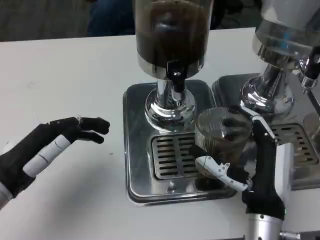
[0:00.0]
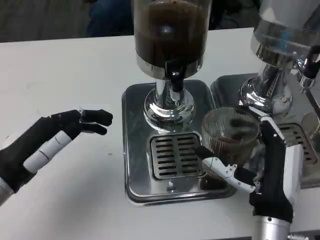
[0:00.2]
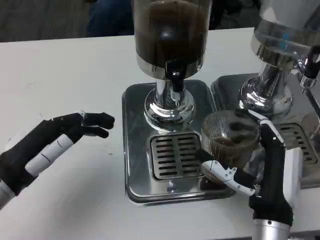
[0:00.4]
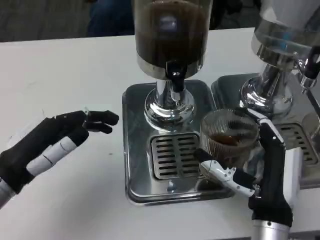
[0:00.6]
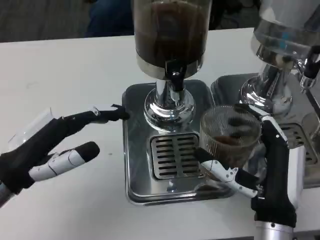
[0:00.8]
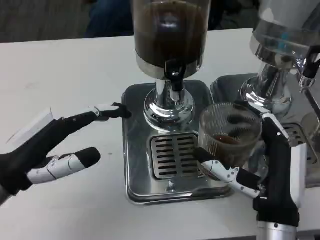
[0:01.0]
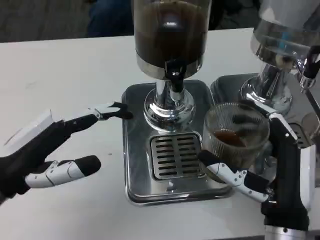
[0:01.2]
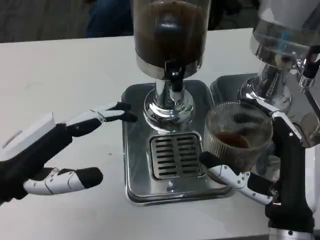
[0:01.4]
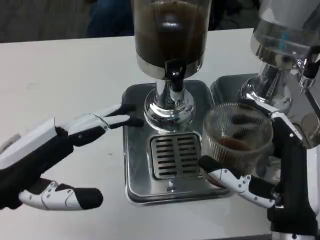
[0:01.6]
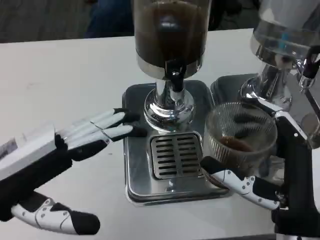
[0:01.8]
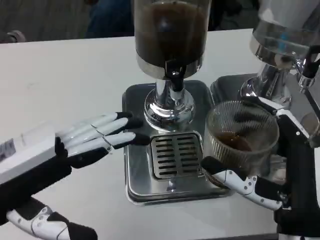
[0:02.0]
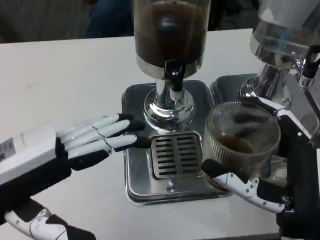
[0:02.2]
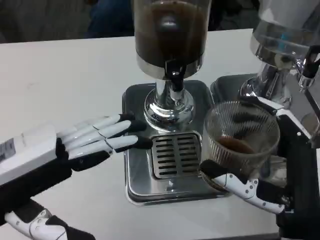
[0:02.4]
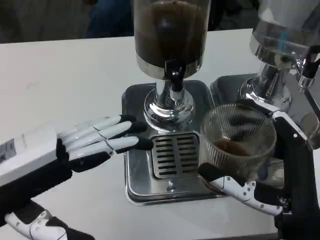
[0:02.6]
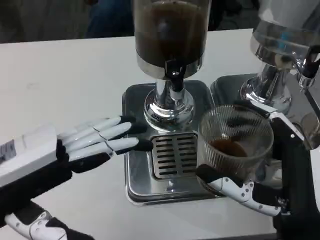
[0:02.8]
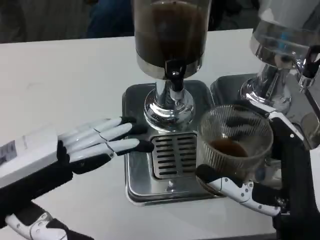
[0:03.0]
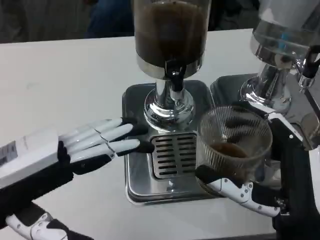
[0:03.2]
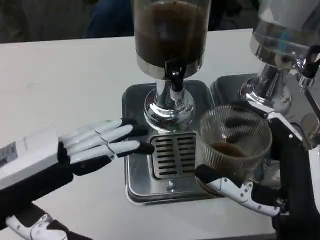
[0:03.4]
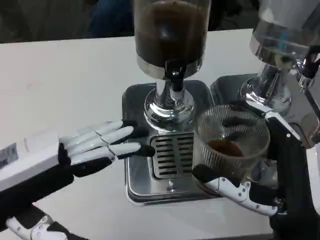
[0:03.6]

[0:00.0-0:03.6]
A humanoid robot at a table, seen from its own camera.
Task of the whole recording: Grasp the cup under the faucet to collect the drink, then remove the cup.
0:00.0 to 0:01.8: The hands both shift upward by about 5 cm.
0:01.8 to 0:03.6: There are only small adjustments of the hands.

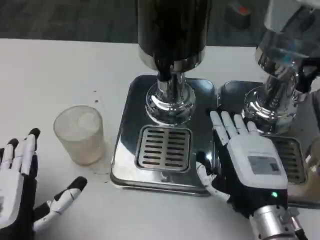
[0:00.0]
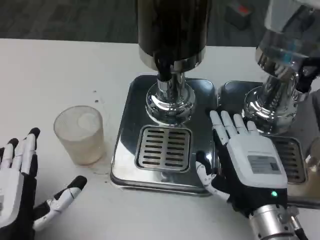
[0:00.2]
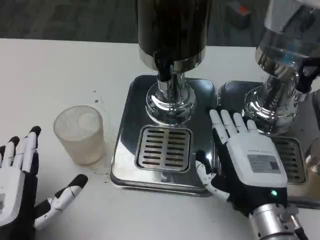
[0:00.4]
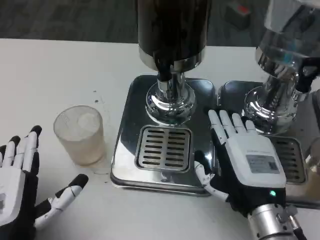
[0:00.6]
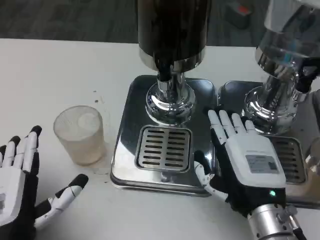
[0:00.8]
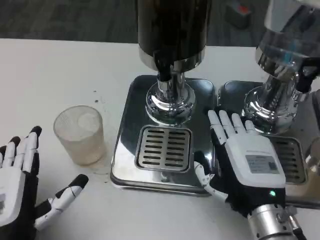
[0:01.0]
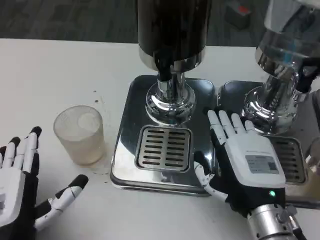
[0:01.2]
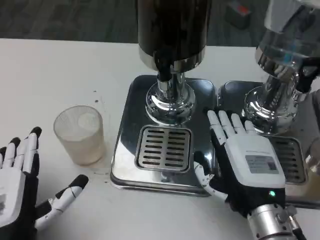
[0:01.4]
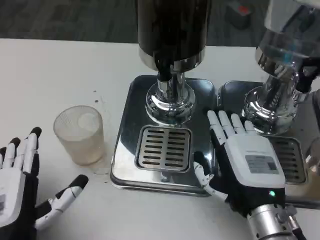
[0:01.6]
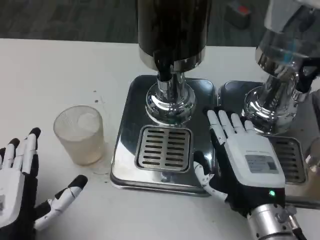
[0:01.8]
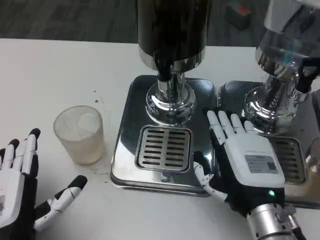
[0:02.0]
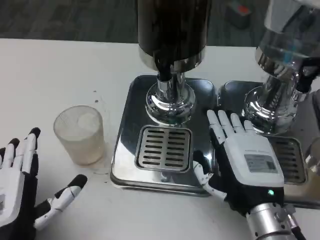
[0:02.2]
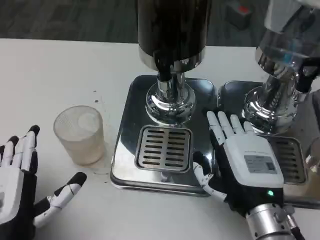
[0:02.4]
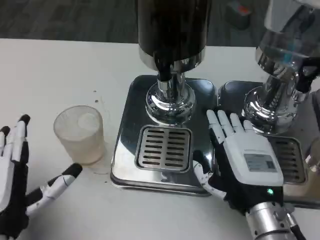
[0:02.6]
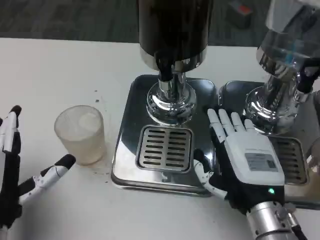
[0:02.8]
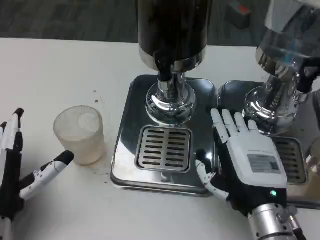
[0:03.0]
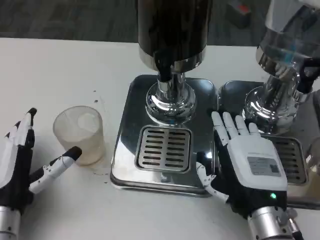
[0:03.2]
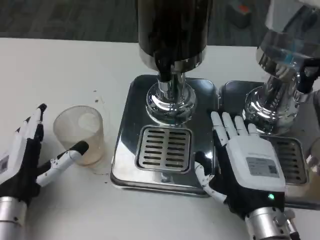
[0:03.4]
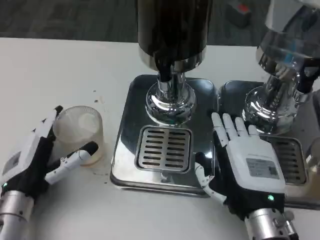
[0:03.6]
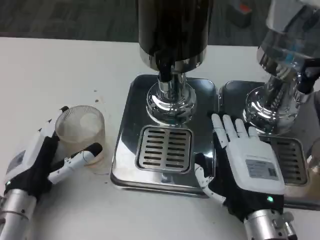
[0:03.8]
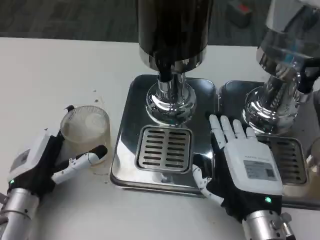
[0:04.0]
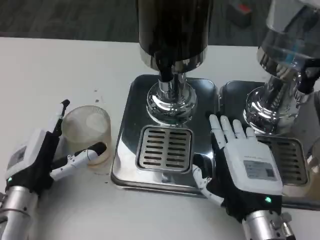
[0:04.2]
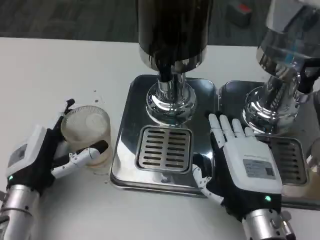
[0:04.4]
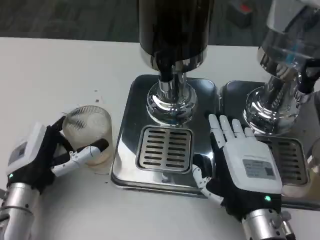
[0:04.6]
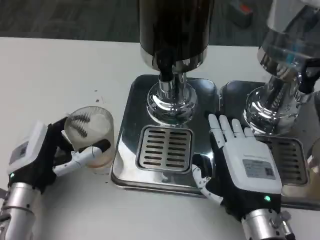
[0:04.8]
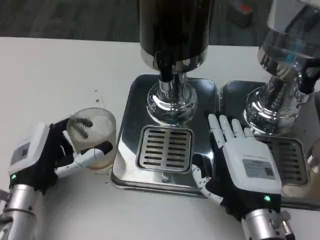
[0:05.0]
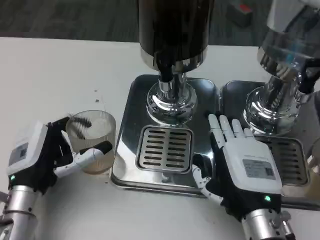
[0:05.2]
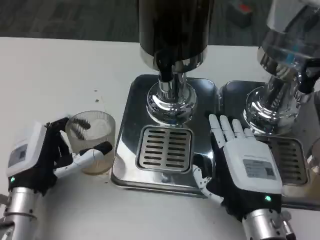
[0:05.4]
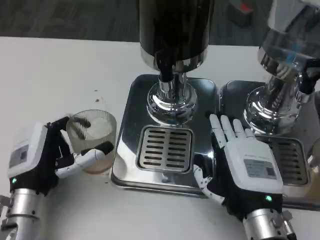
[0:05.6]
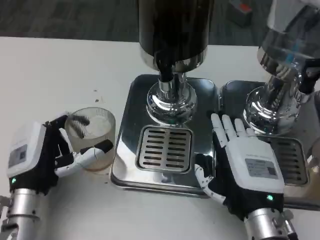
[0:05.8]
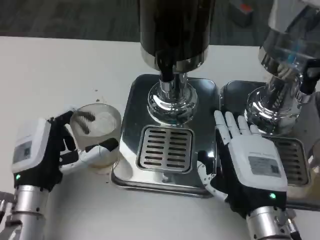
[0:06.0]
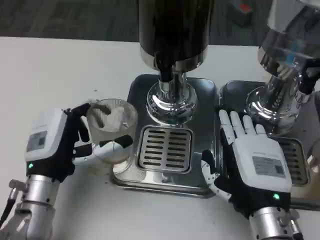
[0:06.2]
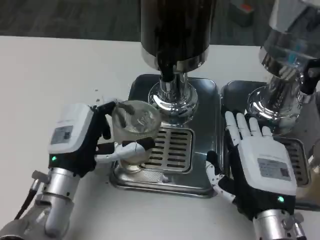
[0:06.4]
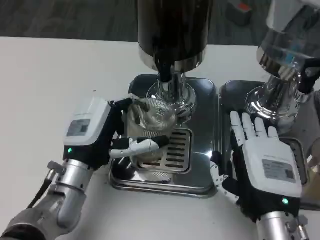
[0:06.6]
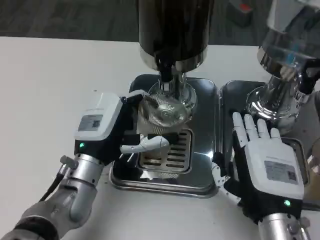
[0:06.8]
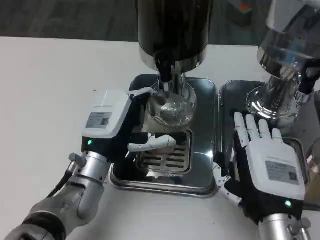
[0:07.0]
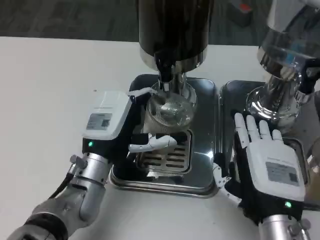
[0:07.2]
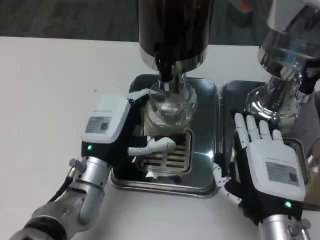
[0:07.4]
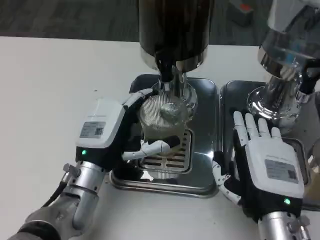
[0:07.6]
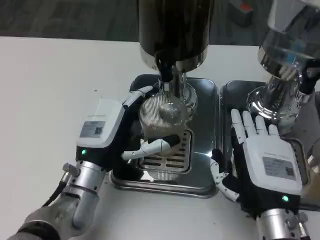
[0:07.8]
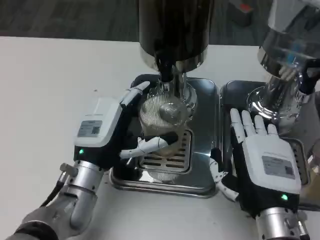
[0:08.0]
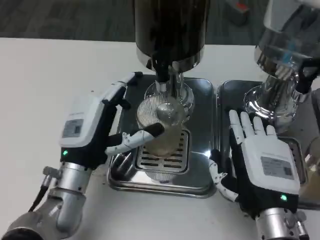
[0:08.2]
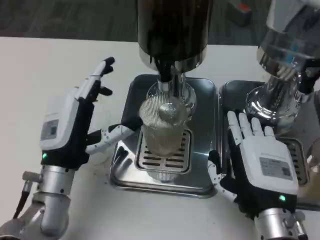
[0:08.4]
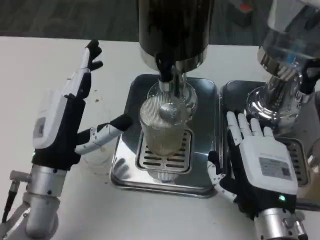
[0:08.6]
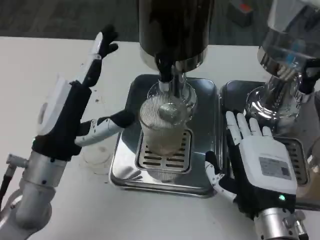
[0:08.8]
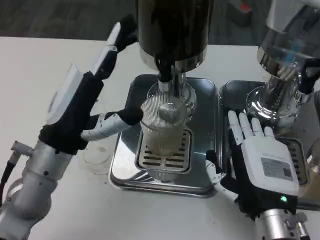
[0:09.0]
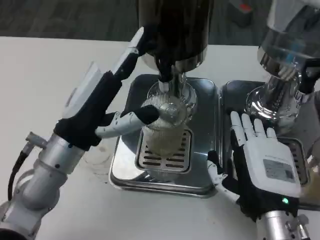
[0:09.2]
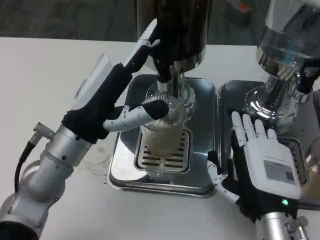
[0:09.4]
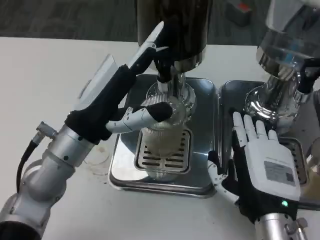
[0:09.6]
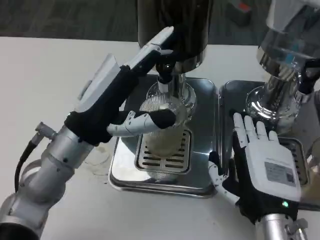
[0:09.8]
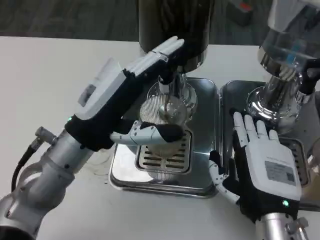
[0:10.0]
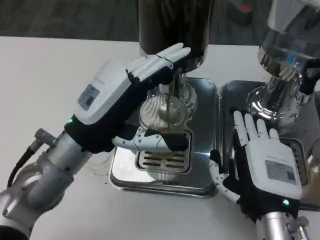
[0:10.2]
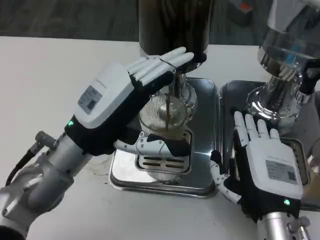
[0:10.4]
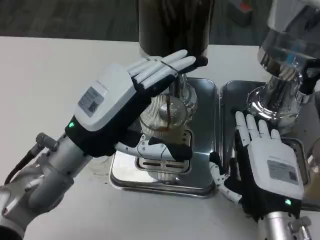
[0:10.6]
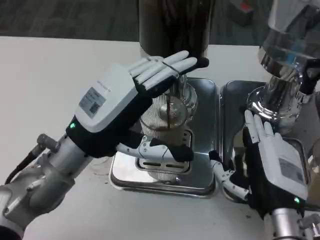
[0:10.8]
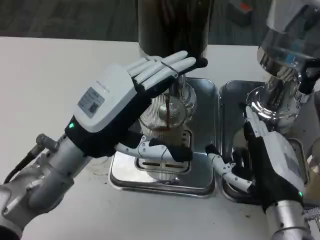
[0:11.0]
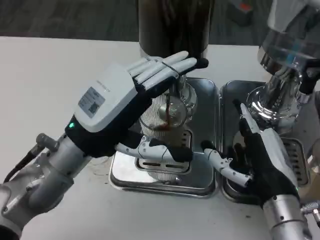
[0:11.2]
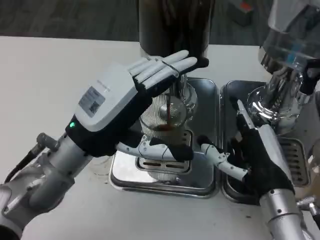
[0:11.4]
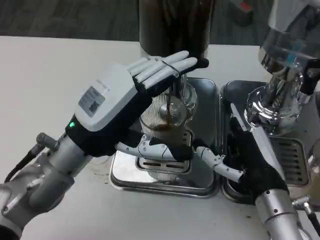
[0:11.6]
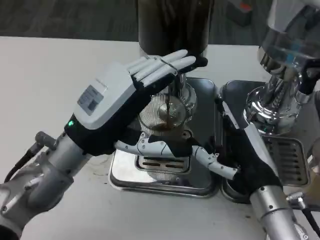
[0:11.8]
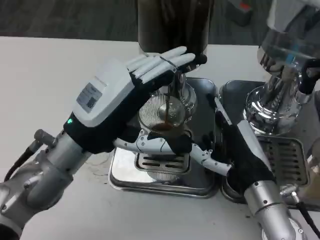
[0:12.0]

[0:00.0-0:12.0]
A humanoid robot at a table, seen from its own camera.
Task of the whole recording: Grasp the cup under the faucet to collect the drink, then remove the cup.
0:00.0 to 0:01.6: The two hands keep their place.
0:01.6 to 0:03.0: The left hand moves about 5 cm.
0:06.0 to 0:07.6: The left hand heads to the right, covering approximately 5 cm.
0:07.6 to 0:09.0: The left hand heads upward, covering some 5 cm.
0:10.4 to 0:12.0: The right hand is displaced forward by roughly 5 cm.

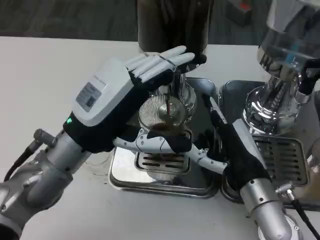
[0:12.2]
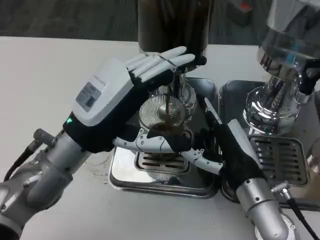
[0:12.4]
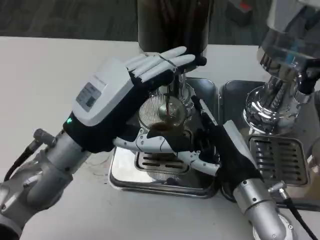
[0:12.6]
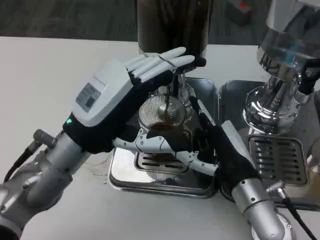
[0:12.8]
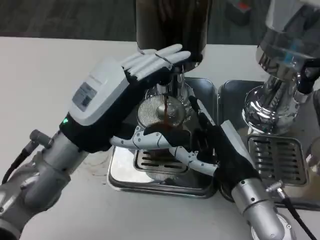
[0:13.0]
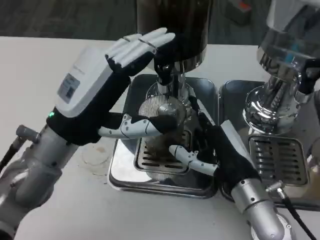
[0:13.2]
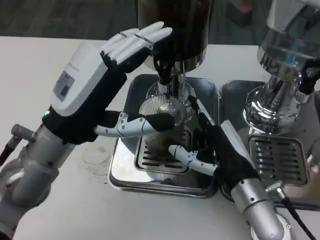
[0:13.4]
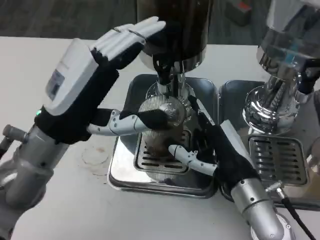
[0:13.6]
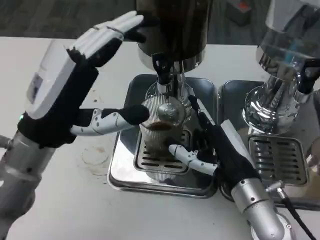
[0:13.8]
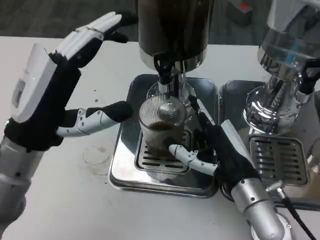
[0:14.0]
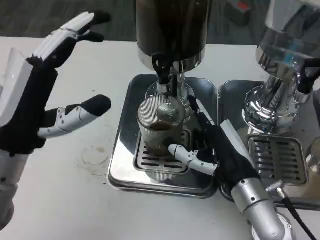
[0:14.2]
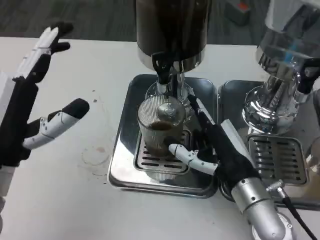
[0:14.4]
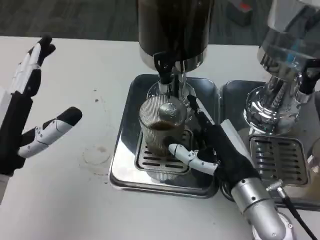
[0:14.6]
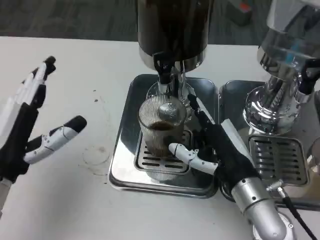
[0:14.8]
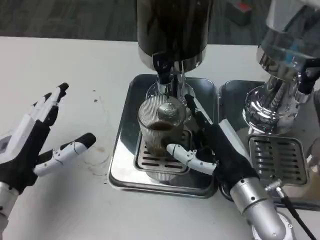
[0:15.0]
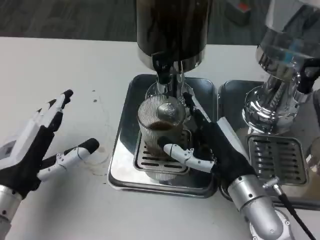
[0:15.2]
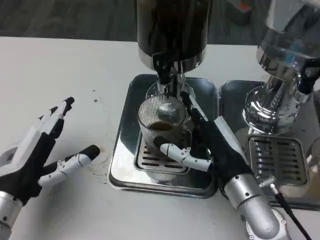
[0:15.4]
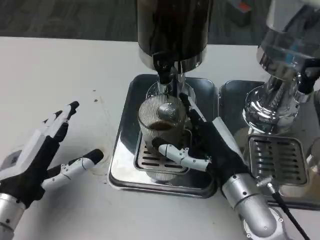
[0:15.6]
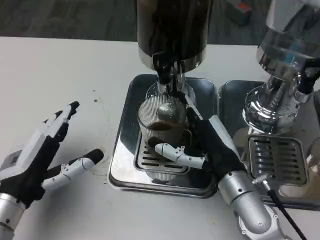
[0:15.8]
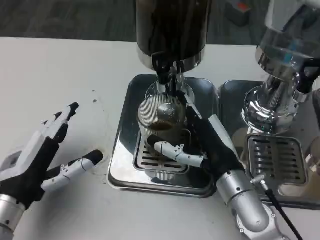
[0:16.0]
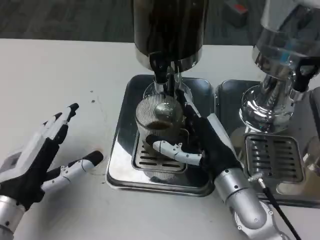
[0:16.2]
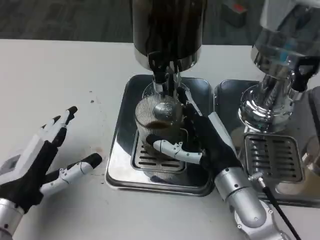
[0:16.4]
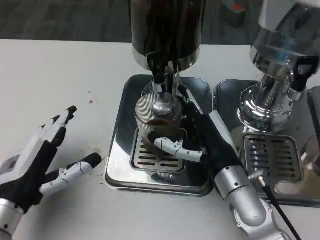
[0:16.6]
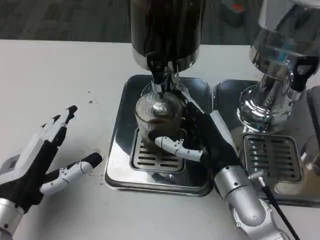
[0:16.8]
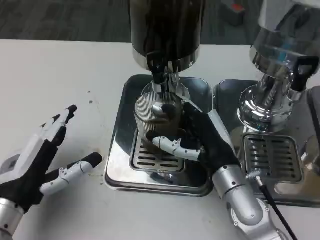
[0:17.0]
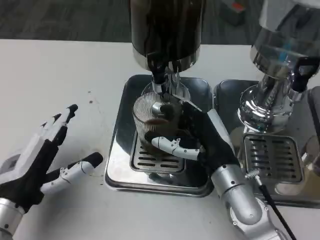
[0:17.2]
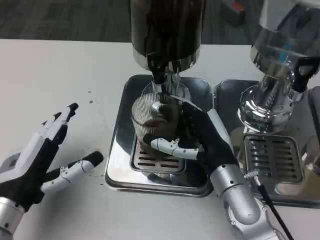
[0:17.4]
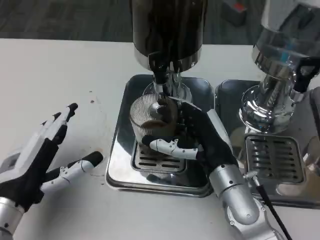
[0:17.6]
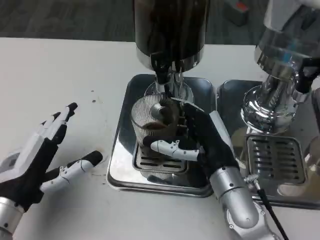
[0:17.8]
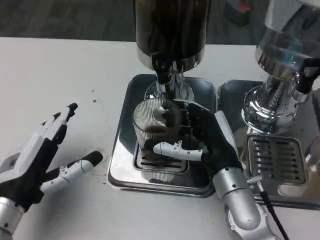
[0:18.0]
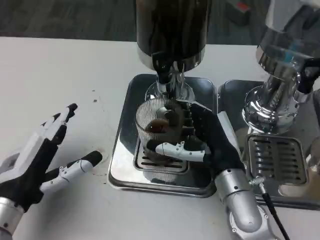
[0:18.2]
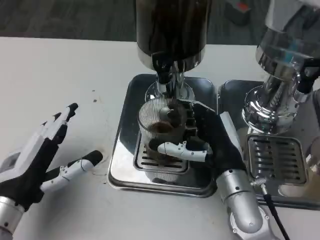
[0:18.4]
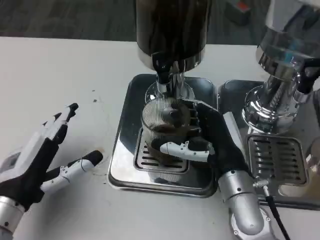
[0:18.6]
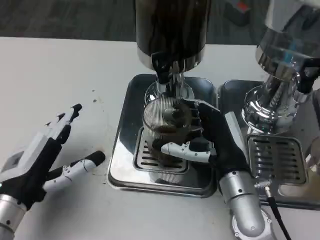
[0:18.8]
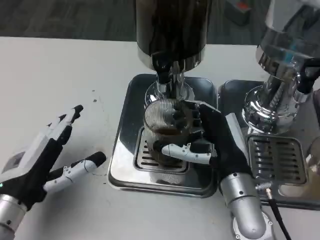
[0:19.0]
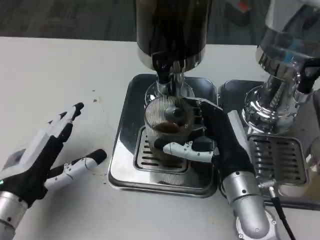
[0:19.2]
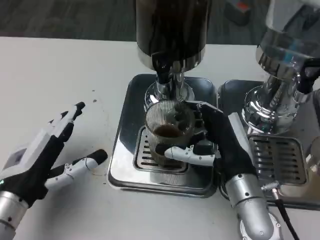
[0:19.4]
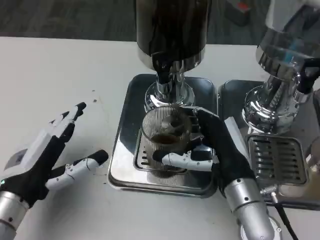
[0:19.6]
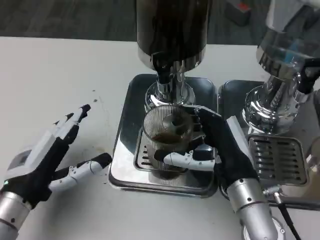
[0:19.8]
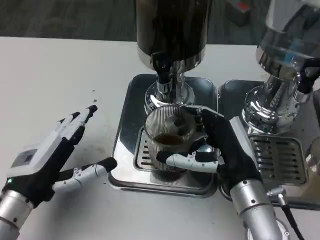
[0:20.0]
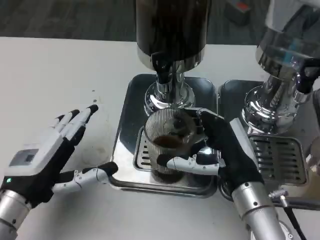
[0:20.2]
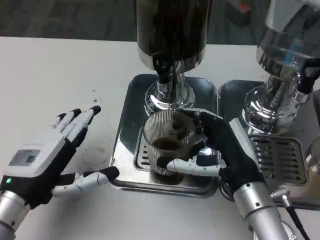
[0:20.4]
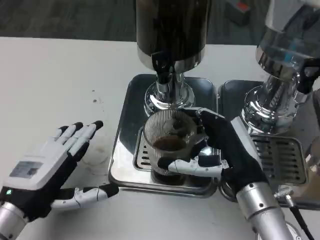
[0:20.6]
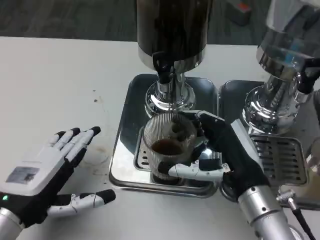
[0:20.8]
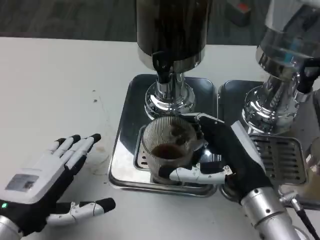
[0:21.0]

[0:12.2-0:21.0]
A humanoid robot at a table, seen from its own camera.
Task of the whole recording: Grasp the cup under the faucet to collect the drink, then remove the cup.
0:13.6 to 0:15.2: The left hand travels downward and to the left by some 10 cm.
0:18.0 to 0:19.6: The hands move only a little.
